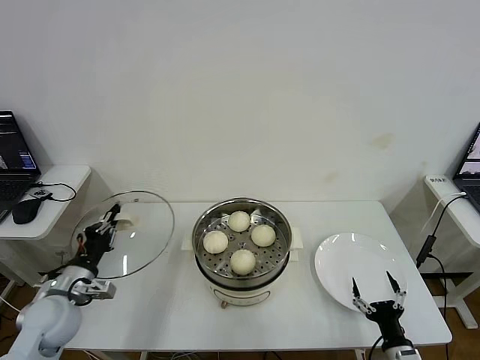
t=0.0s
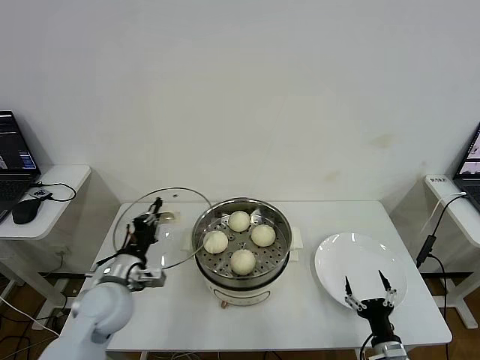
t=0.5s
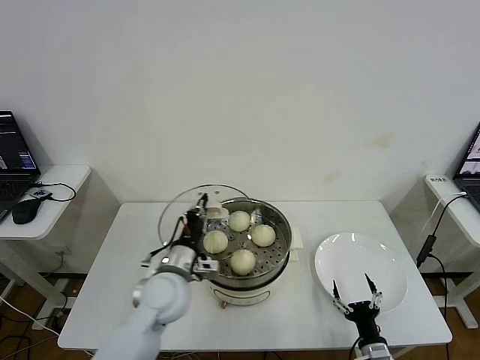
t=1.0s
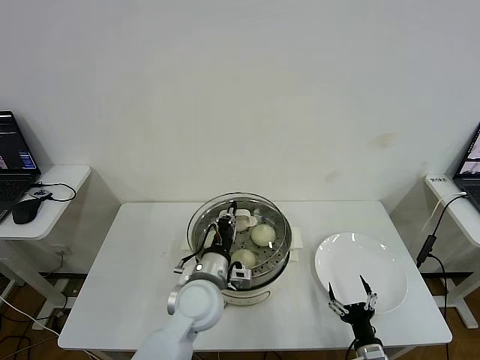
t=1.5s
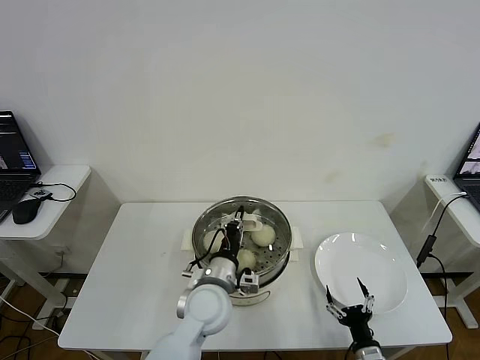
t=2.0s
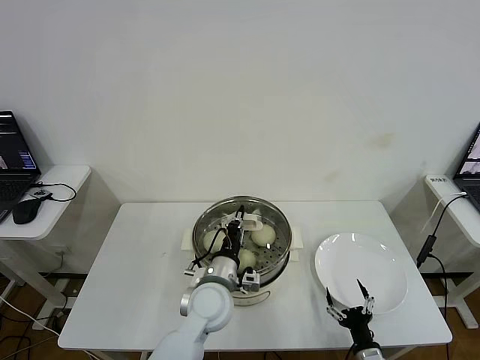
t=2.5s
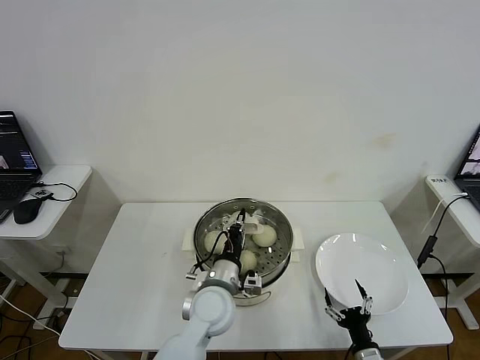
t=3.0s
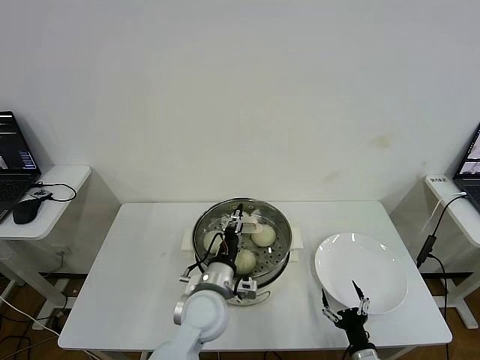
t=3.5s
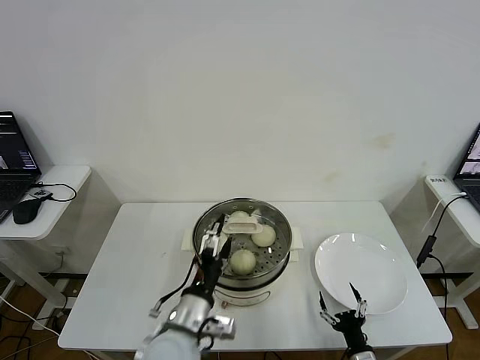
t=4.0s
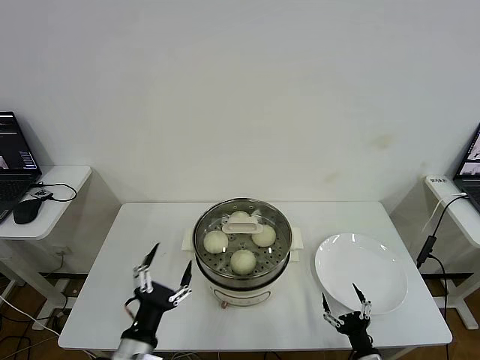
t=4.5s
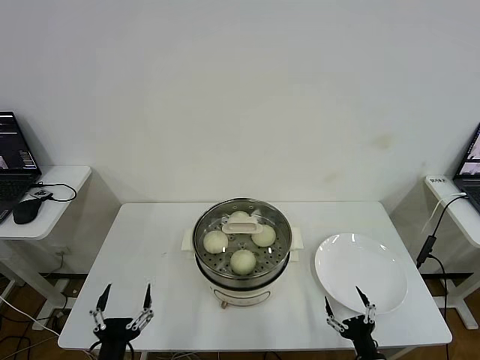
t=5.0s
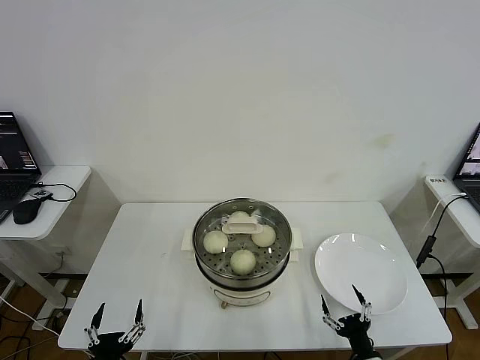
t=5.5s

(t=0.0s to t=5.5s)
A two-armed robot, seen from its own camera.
Step, t=0.0s - t=3.5s: Place the pot lid on the steamer with left gripper.
t=0.0s - t=2.0s: The left gripper is displaced to the right by roughly 30 cm. Meanwhile the right gripper moves some 5 cm.
t=2.0s - t=3.5s: The left gripper opens.
t=3.5s - t=5.5s: The left gripper is displaced backward, to the left and downward by about 30 cm, and opens.

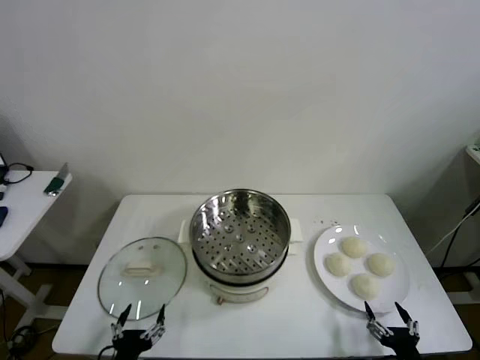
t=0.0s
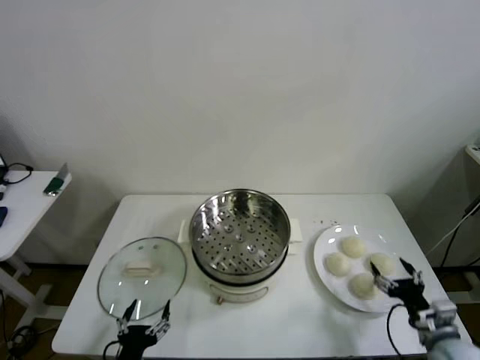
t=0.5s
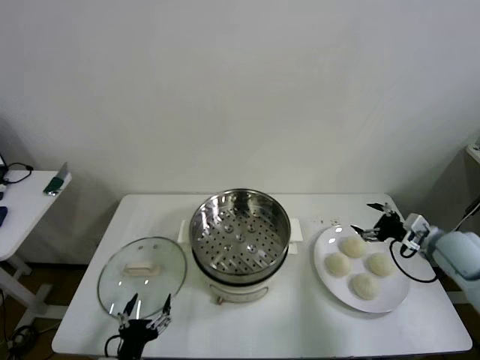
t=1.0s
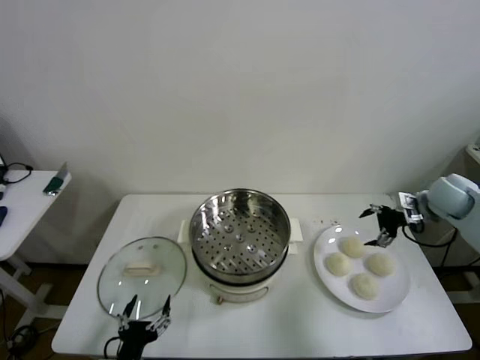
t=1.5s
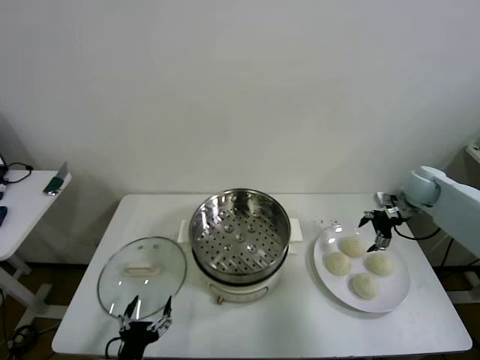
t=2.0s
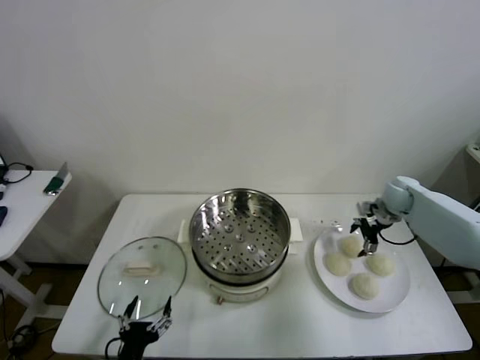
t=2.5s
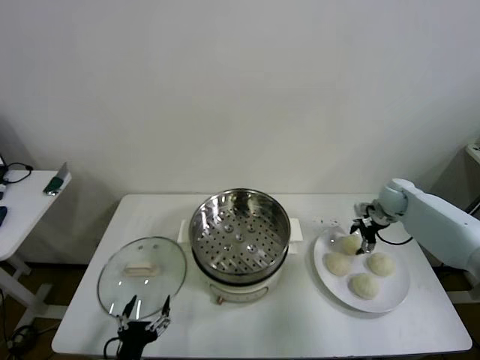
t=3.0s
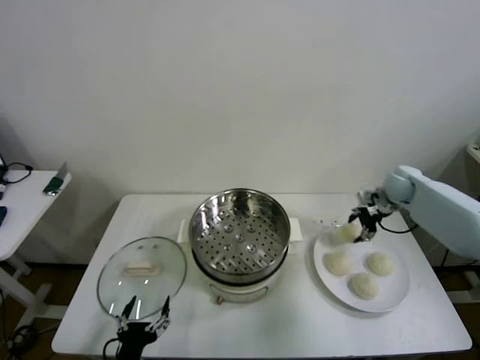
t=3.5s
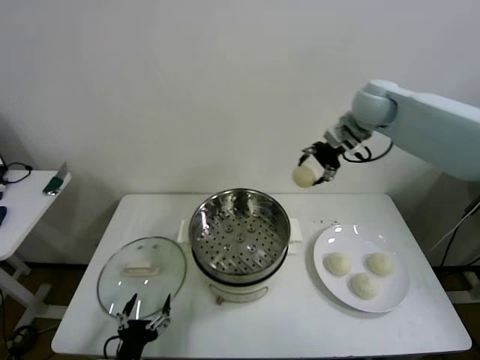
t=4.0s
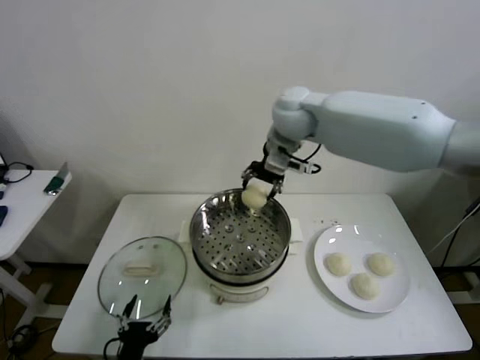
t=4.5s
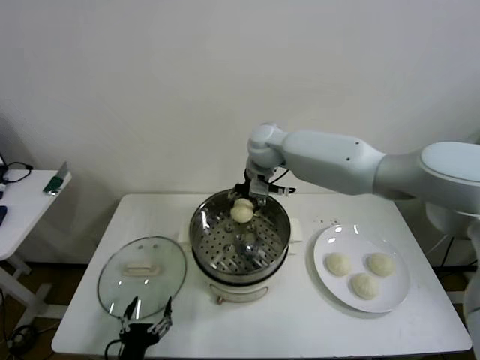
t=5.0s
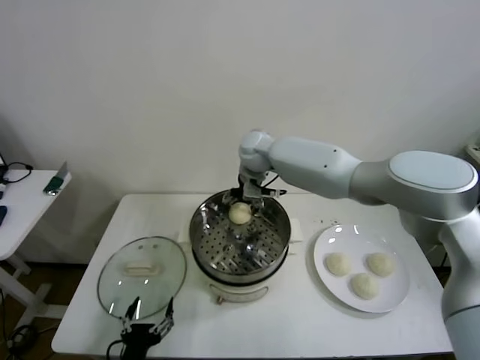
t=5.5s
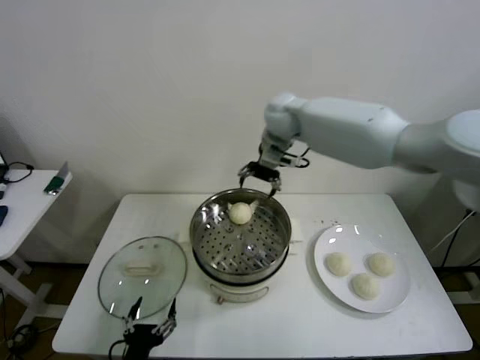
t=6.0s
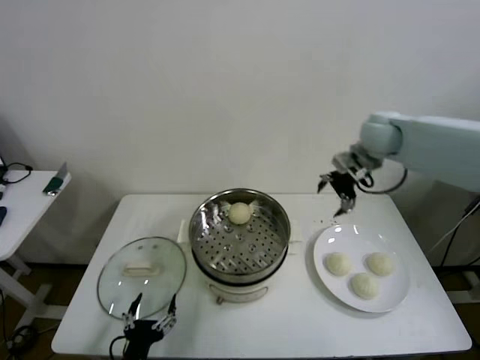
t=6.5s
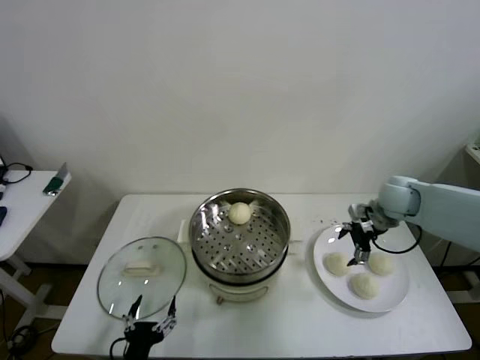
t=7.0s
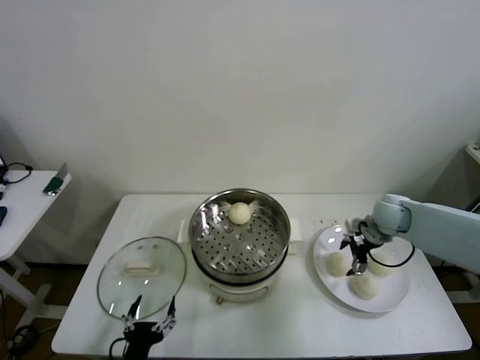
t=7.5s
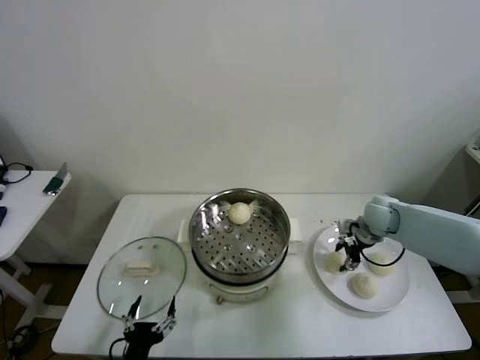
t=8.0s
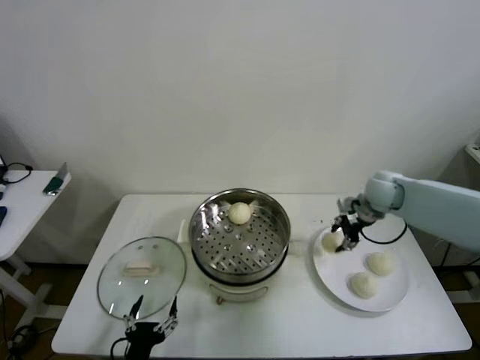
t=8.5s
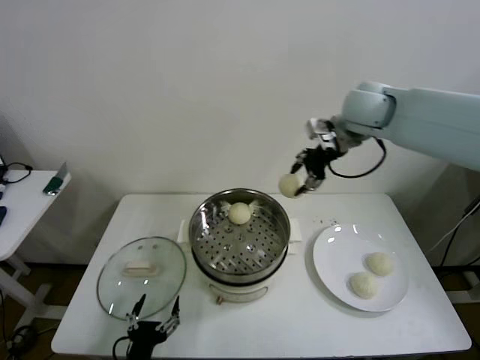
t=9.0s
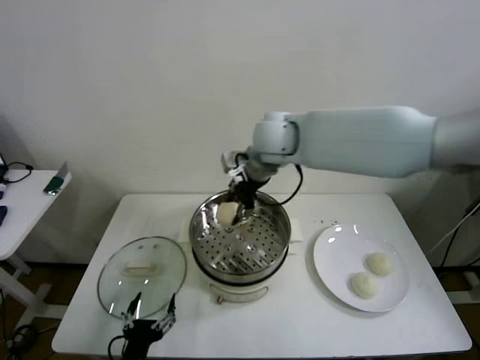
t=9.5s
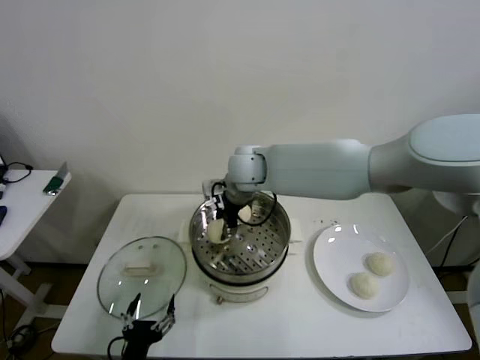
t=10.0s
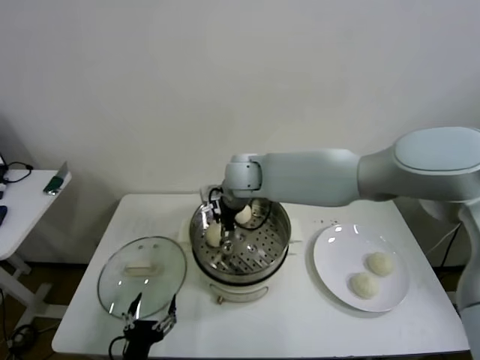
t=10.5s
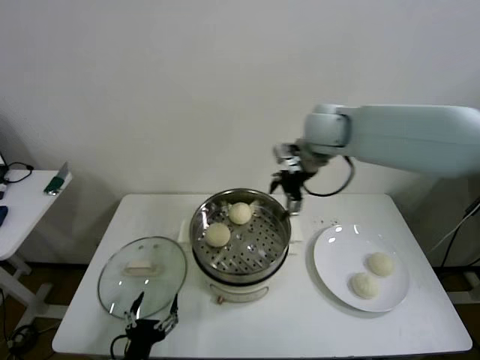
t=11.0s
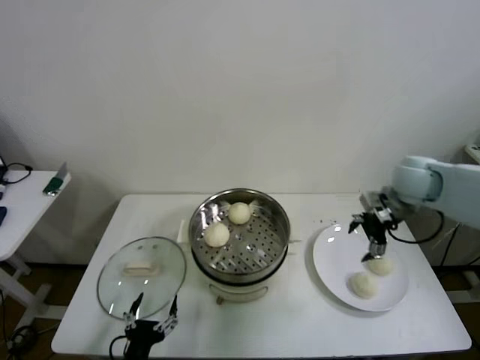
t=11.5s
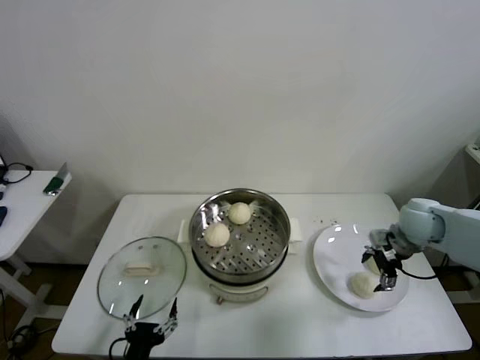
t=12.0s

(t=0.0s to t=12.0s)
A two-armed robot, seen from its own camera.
Step, t=0.0s - t=3.0s: Grasp the baozi in the plate with right gripper.
Step, t=3.5s - t=5.5s: Place the baozi on the steamer with right gripper.
Step, t=6.0s - t=7.5s: Grasp the baozi in the plate with right gripper.
Step, t=8.0s - t=10.5s: Place the baozi on the steamer with right gripper.
t=2.0s - t=4.0s: The right gripper shifts roughly 30 cm upward and to the left, and closes.
t=4.0s - t=6.0s: The right gripper is displaced to the left by roughly 10 cm, and opens its fingers.
t=6.0s - t=8.0s: The right gripper goes roughly 35 cm downward, to the right and backward, and closes up.
t=8.0s - t=10.0s: The right gripper goes some 40 cm to the left and upward.
t=10.0s - t=12.0s: The right gripper travels to the right by roughly 40 cm, and opens up.

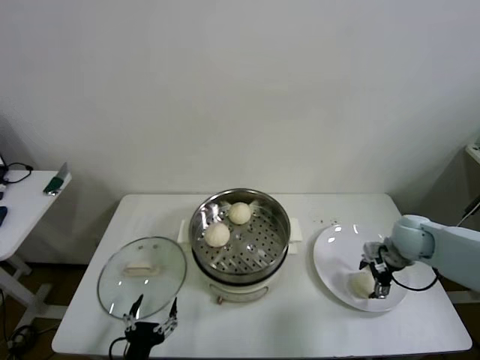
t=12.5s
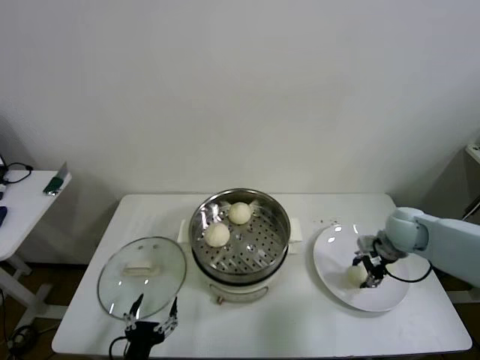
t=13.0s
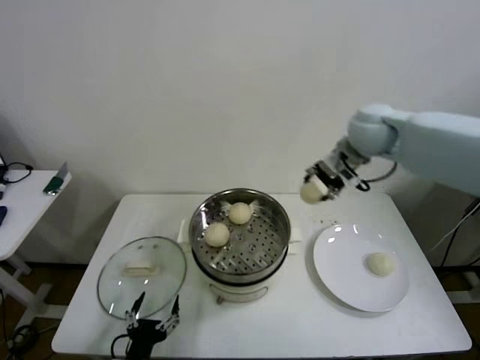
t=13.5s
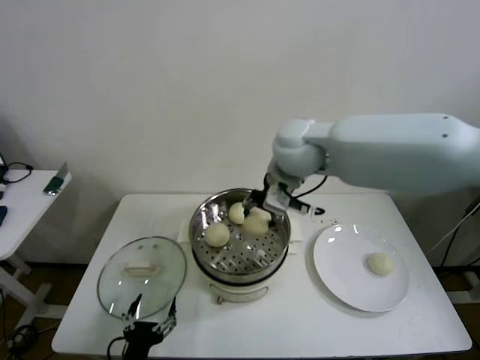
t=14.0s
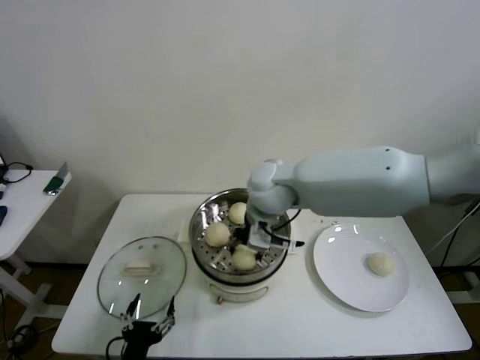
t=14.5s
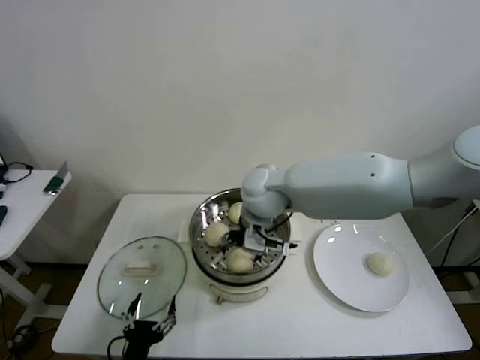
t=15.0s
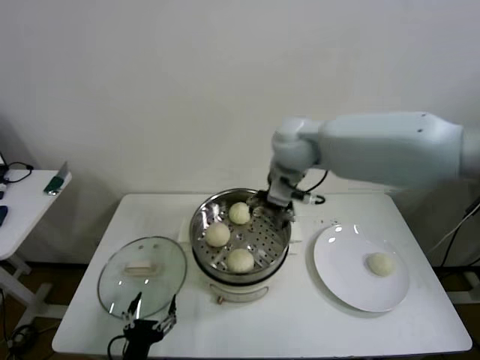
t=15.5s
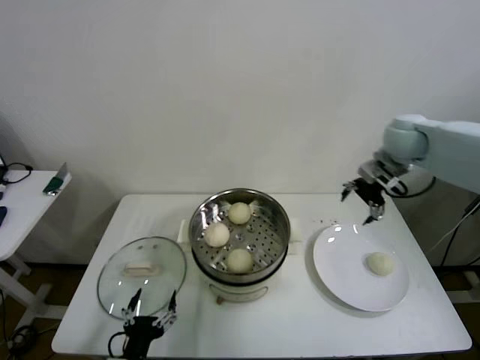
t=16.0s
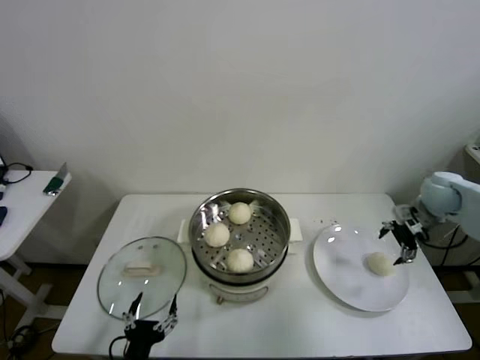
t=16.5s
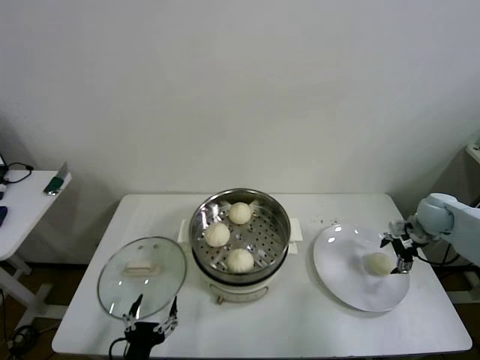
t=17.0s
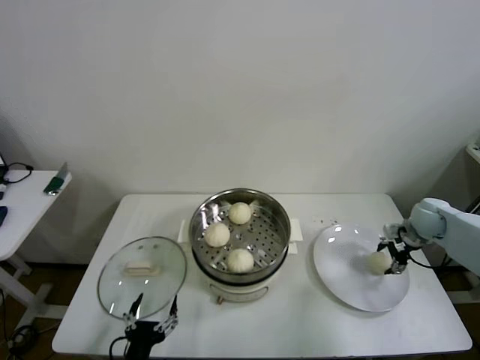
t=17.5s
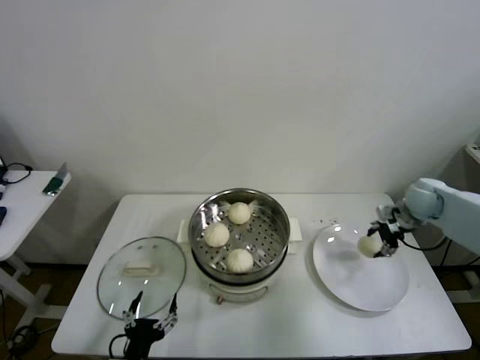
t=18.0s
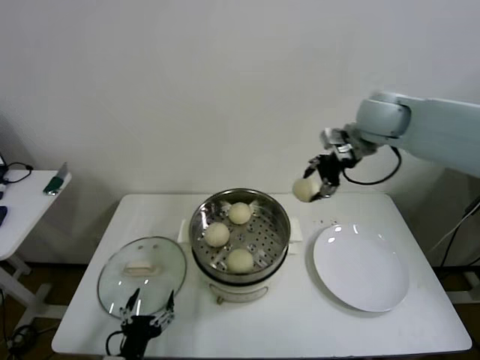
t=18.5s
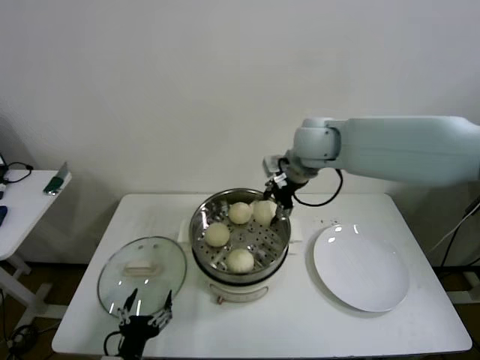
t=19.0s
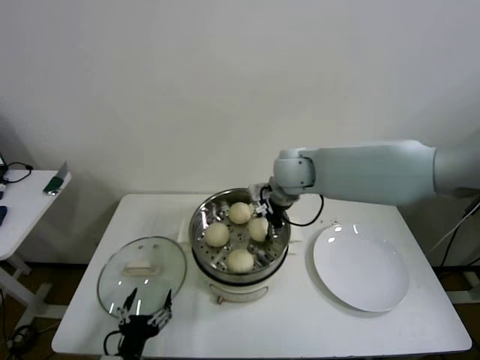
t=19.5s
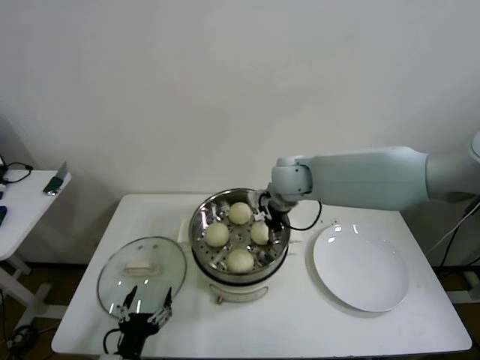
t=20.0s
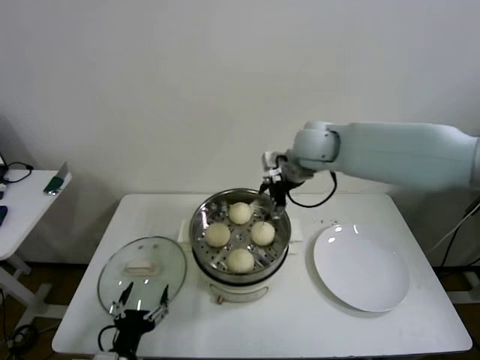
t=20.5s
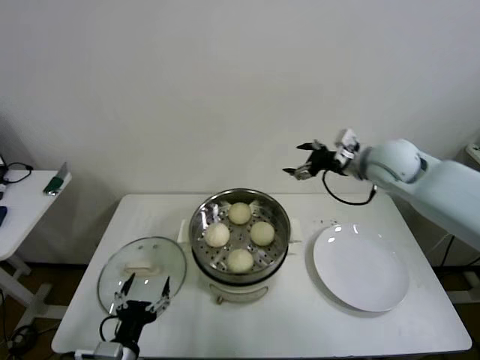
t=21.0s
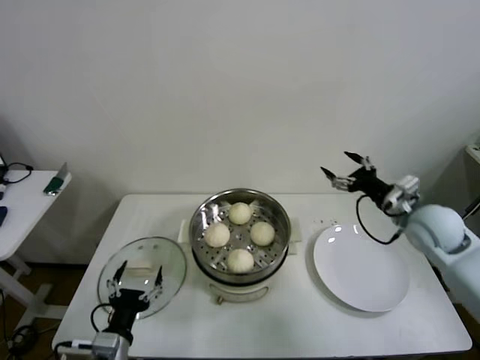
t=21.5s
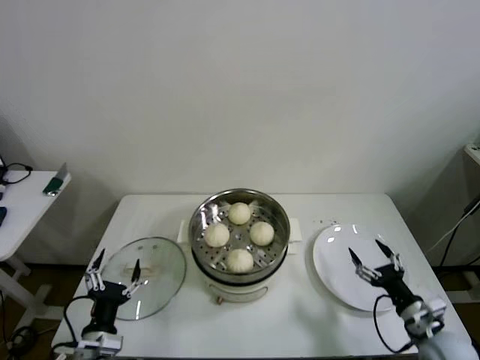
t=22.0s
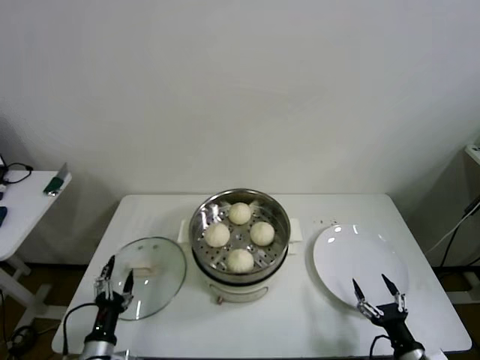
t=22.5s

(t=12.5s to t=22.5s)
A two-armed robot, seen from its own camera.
Step, t=13.0s - t=15.0s: Place the baozi on the steamer with right gripper.
Step, t=15.5s - t=17.5s: Grasp the baozi in the plate with right gripper.
Step, t=18.0s - t=20.0s: Place the baozi on the steamer with right gripper.
t=12.5s - t=14.5s: The right gripper moves to the left and upward, some 40 cm, and closes its fingers.
t=14.5s - t=16.5s: The right gripper is displaced to the right by approximately 40 cm, and opens.
t=16.5s - t=18.5s: The right gripper heads to the left and upward, covering some 30 cm, and closes its fingers.
t=18.5s - t=20.5s: The right gripper shifts approximately 15 cm to the left and downward, and opens up.
t=20.5s - t=22.5s: The right gripper moves backward, downward and to the right, about 60 cm, while the left gripper is displaced to the left and downward by some 10 cm.
